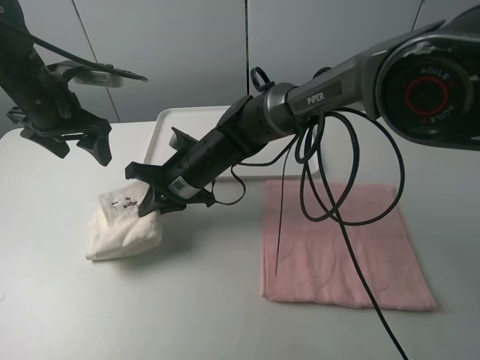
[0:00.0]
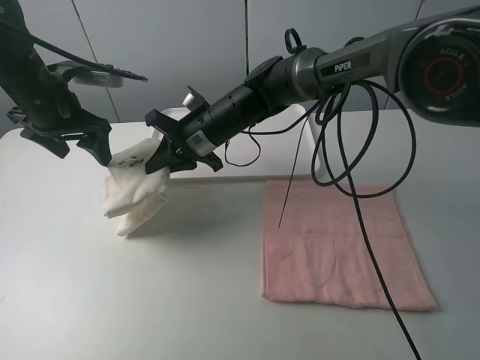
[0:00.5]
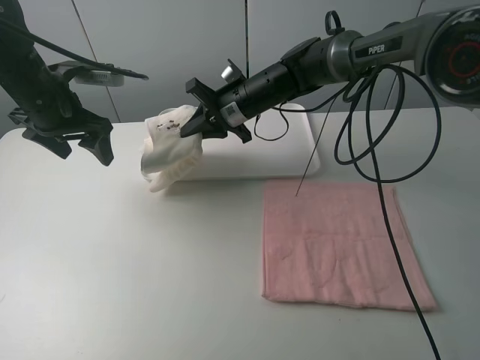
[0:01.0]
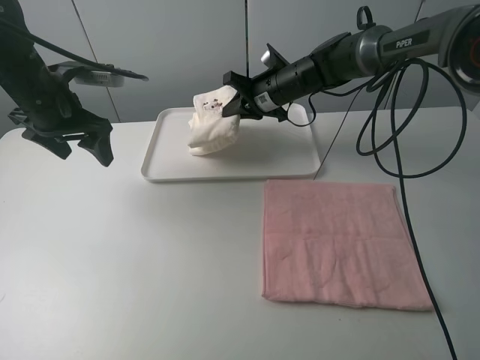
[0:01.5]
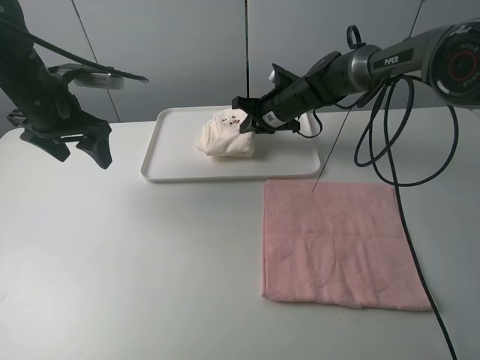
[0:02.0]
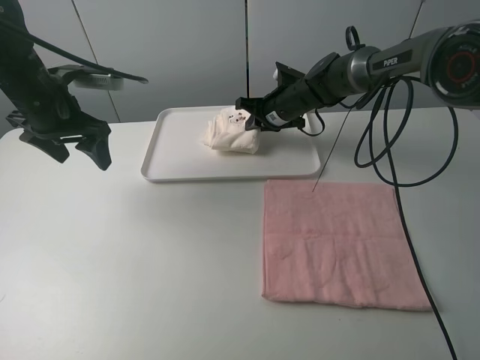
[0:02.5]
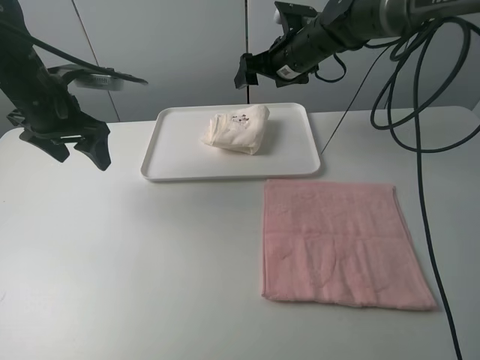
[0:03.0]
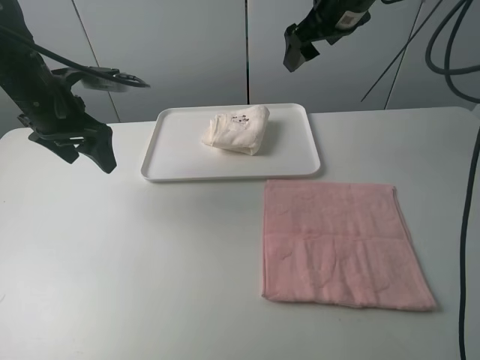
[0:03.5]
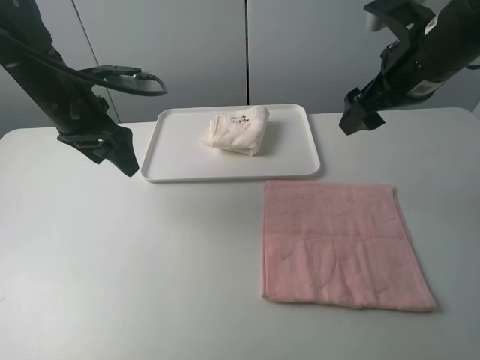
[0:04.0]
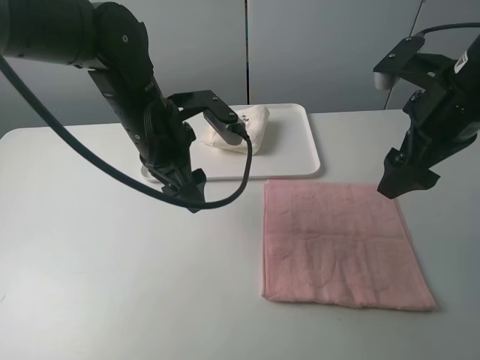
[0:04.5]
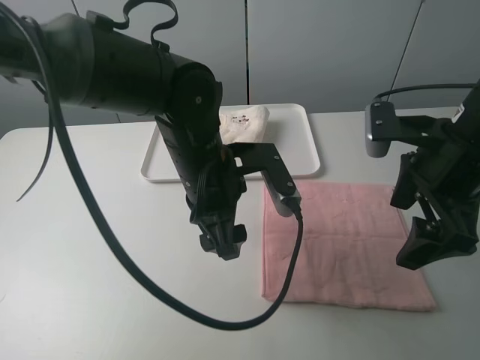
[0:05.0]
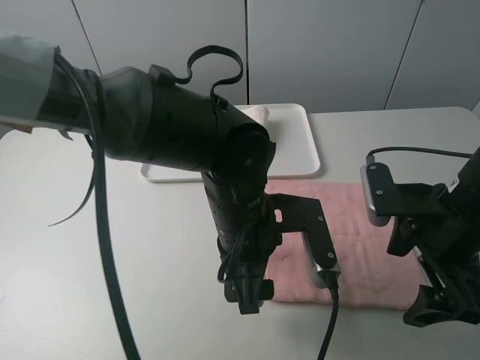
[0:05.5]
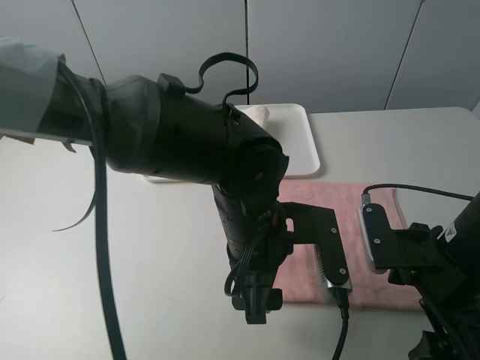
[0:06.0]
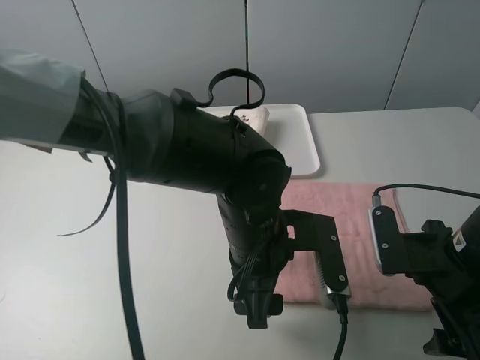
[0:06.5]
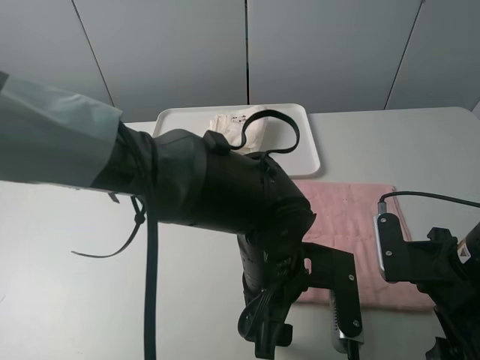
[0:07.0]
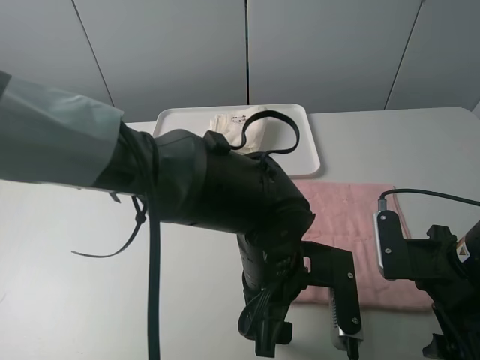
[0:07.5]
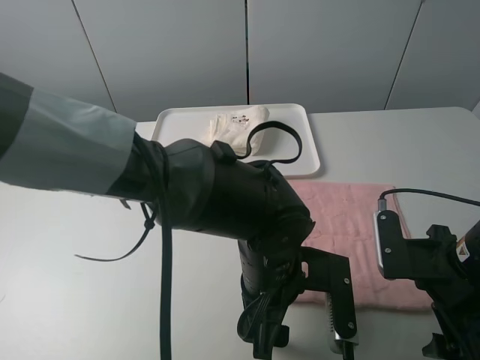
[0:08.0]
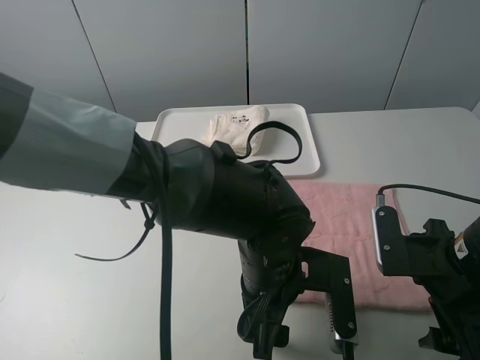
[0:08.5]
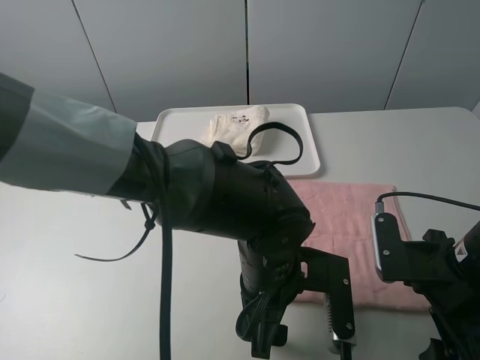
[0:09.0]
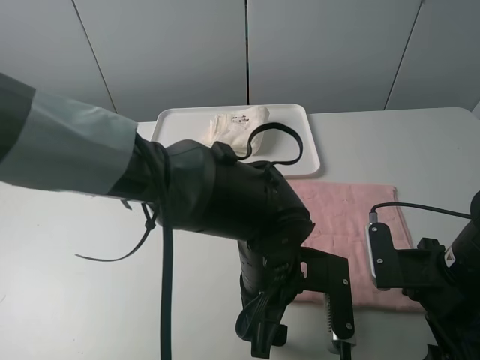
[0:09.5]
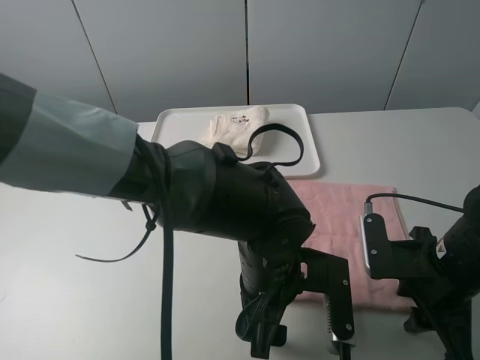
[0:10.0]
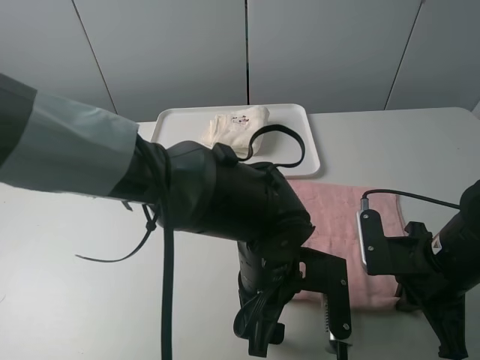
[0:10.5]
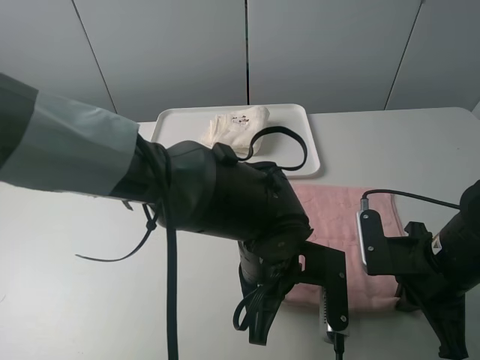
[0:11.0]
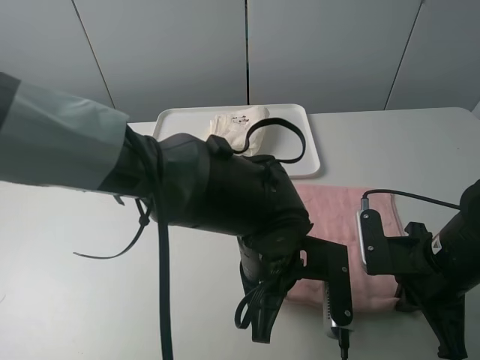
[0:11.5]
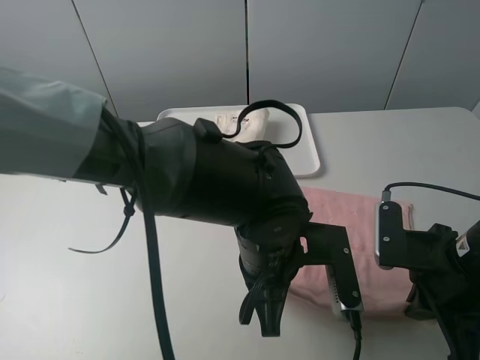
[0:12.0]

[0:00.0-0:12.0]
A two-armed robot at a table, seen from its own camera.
Task of the whole recording: fold one of the towels by two grippers and place it on the tray,then fold another towel by two grippers and place it on the folded towel.
Step, 0:00.0 to 0:02.5: Move the white towel to the plate with the right gripper.
Step, 0:03.0 to 0:10.5: Grasp the pink towel with the left gripper.
0:00.0 to 0:02.0: The right gripper is displaced forward and to the right by roughly 20 cm.
0:02.0 to 0:04.0: The left gripper ends up about 5 cm from where it was. The right gripper moves backward, upward and to the right, roughly 25 cm, and opens its fingers.
0:04.0 to 0:06.0: The right gripper is displaced backward and downward by approximately 20 cm, while the left gripper shifts about 30 cm to the right and backward.
0:06.0 to 0:08.0: The left gripper shifts by about 5 cm.
0:08.0 to 0:10.0: The right gripper closes up.
0:10.0 to 0:12.0: The right gripper closes its fingers. The left gripper closes up.

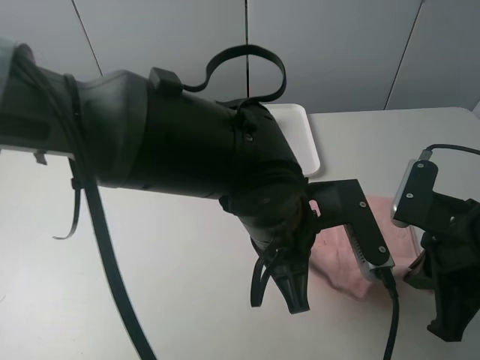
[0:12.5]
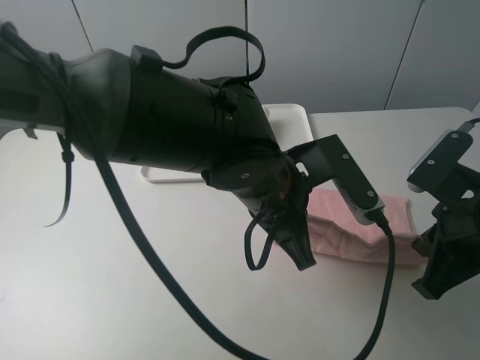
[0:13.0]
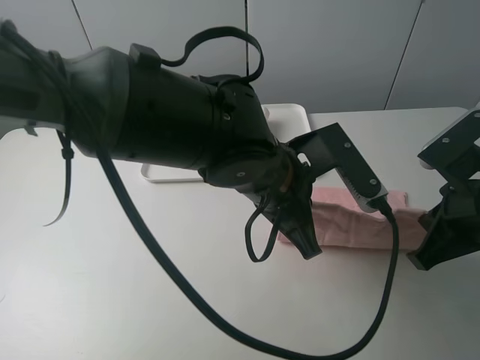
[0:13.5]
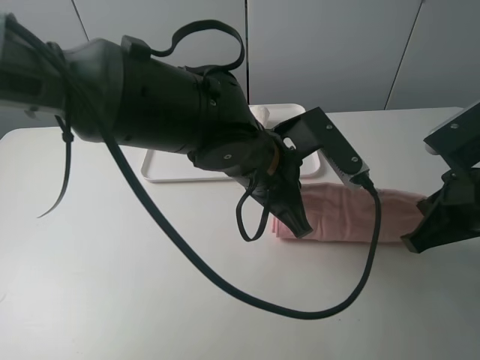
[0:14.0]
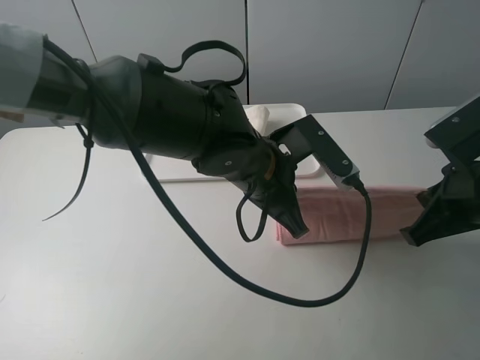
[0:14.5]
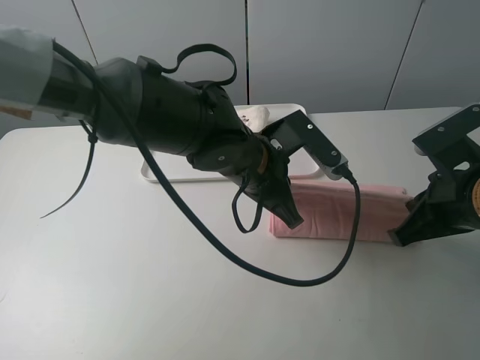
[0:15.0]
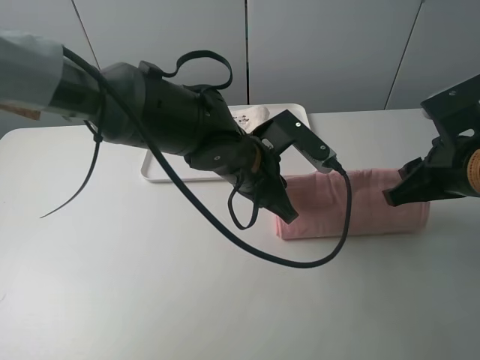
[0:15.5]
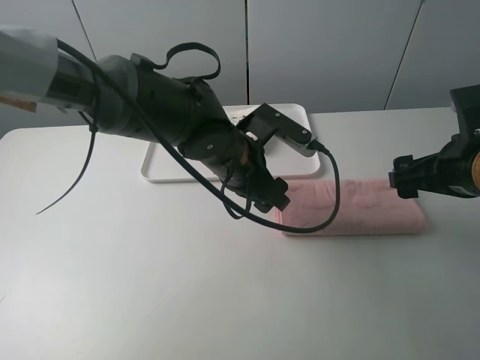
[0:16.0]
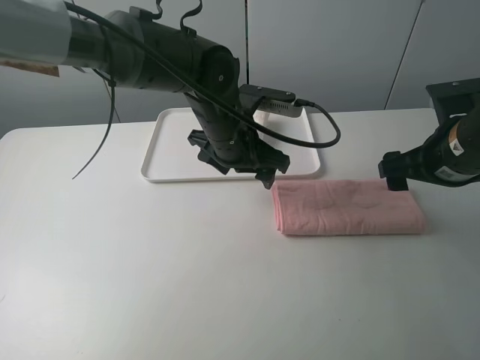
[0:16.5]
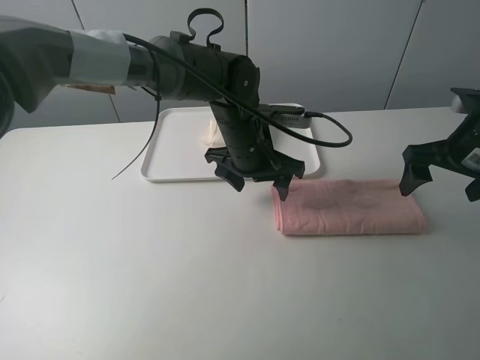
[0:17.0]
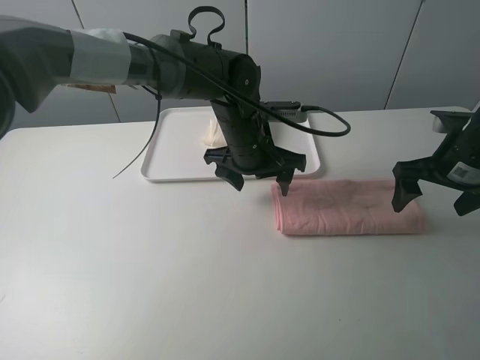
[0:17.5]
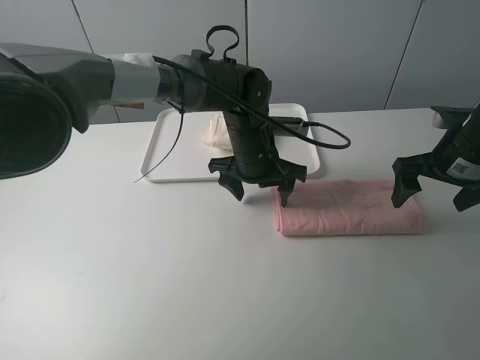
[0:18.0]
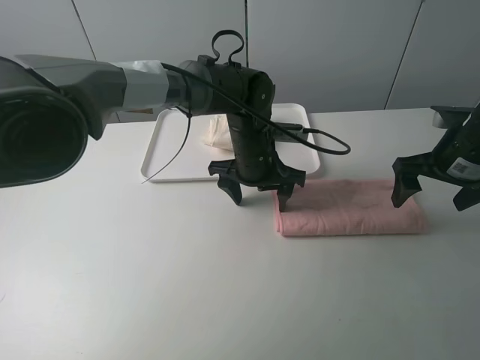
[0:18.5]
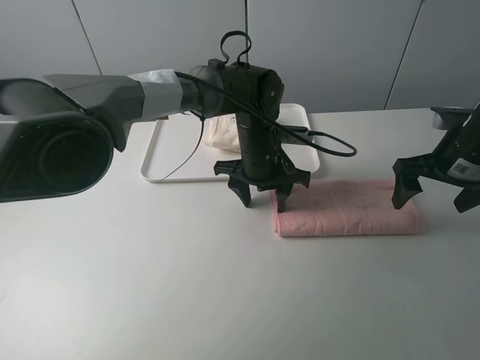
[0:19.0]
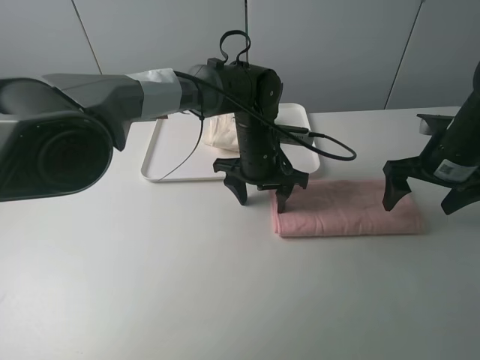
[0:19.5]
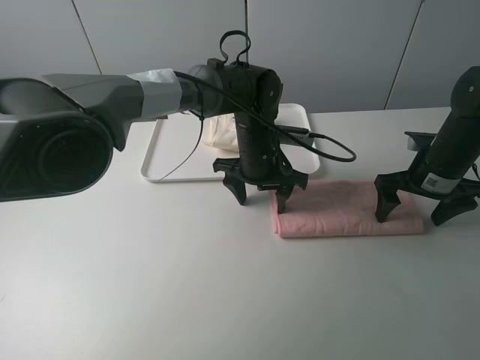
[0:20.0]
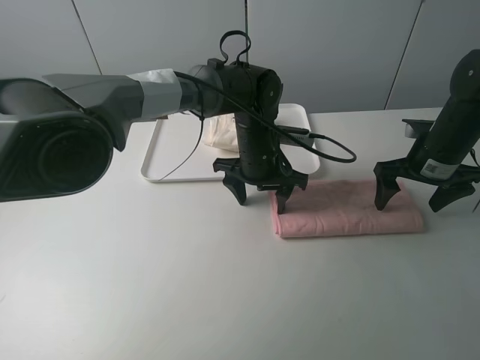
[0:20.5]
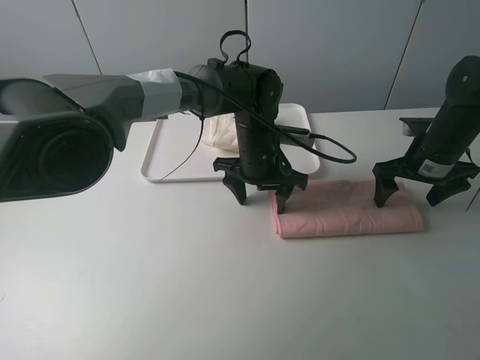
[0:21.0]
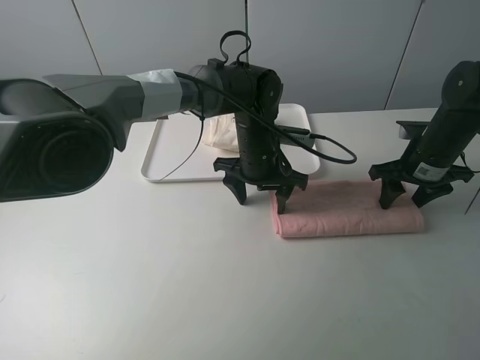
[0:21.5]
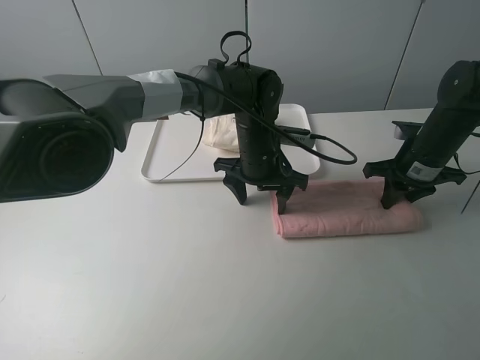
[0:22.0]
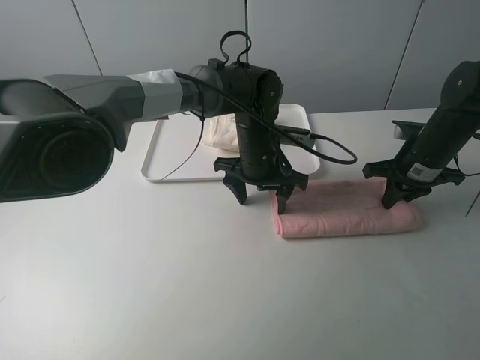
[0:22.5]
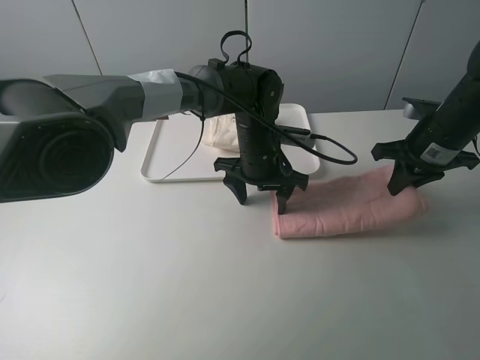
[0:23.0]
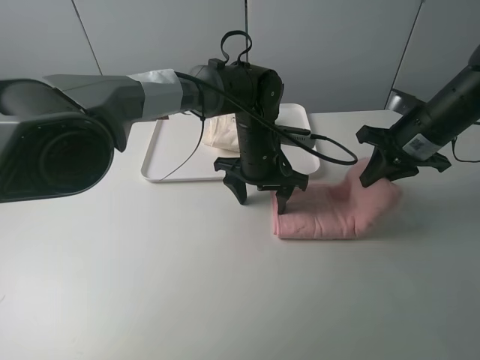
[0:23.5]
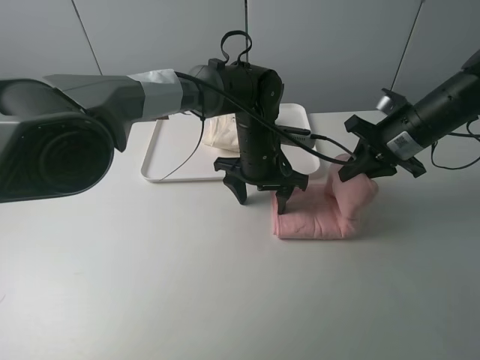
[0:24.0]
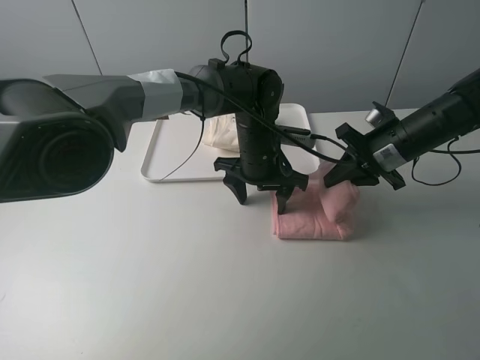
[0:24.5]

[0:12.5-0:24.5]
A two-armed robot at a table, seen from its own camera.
Task of the whole recording: fold one of the towels by two grippers and place it on the tray,then fold another towel by two grippers and place it on the folded towel.
Step, 0:12.5 to 0:15.5: Fold the pink towel upwards with the left gripper.
Step, 0:16.0 to 0:18.5: Press the pink towel with the left gripper.
Step, 0:19.0 to 0:22.0: Grasp the pink towel with the right gripper.
0:12.5 to 0:14.5: The left gripper heads forward, covering approximately 5 cm.
0:14.5 to 0:16.5: The two grippers go some 10 cm forward. The right gripper opens up; the left gripper opens up.
0:16.5 to 0:18.5: The right gripper shifts by some 5 cm. The left gripper heads downward, covering some 5 cm.
0:18.5 to 0:20.5: The right gripper ends up some 5 cm from where it was.
0:20.5 to 0:22.5: The right gripper closes up.
0:22.5 to 0:24.5: The right gripper shifts some 5 cm to the left.

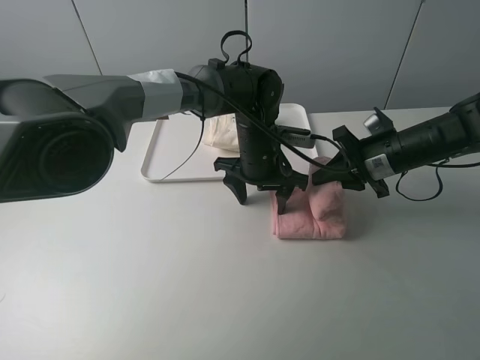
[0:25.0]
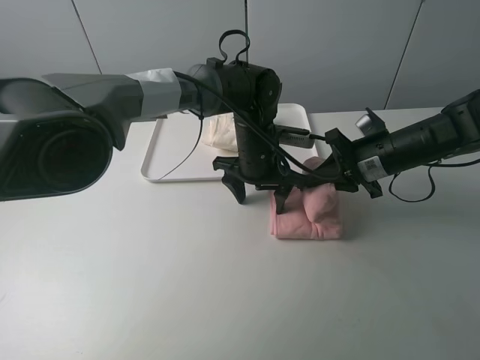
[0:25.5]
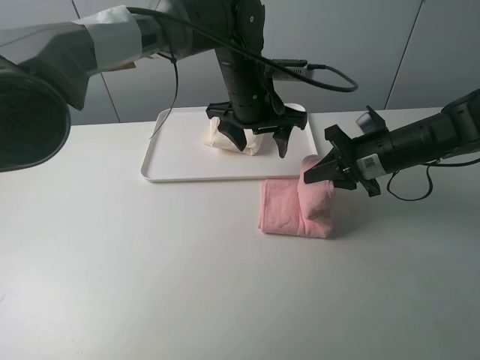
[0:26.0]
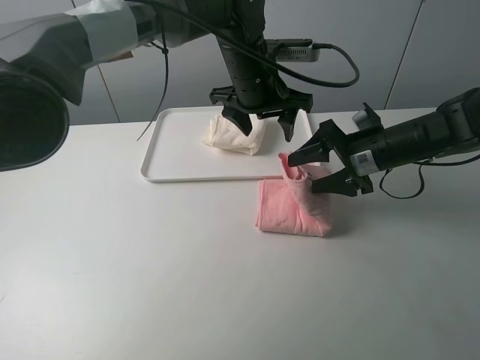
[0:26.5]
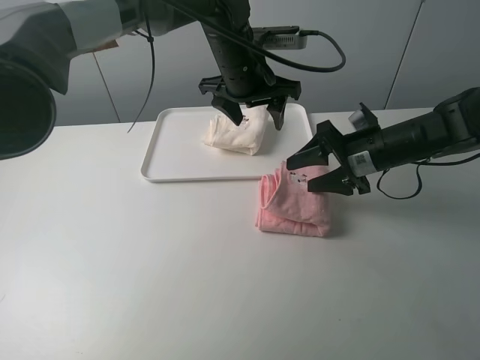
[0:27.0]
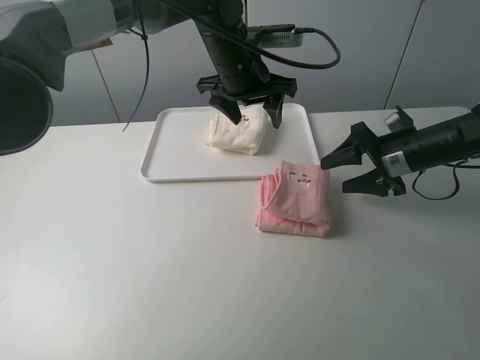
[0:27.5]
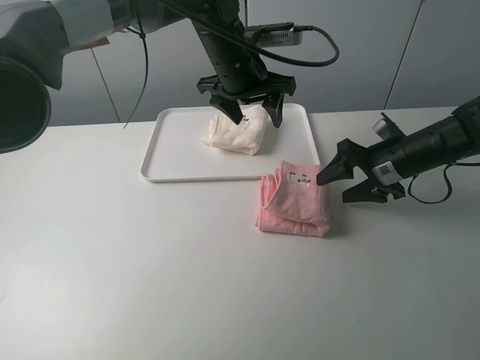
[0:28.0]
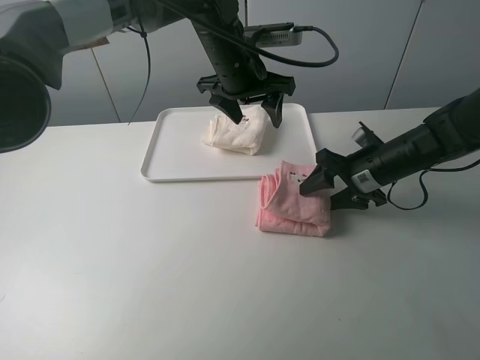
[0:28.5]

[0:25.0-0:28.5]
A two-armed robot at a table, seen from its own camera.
Task of the whole recording: fold one of the towels by two grippers and place it on the tray,then fold another towel by two grippers and place it on the folded towel.
0:25.0 to 0:27.0: The left gripper shifts about 15 cm upward. Meanwhile the right gripper opens.
0:27.0 to 0:28.5: The grippers stay close to where they were, moving slightly.
